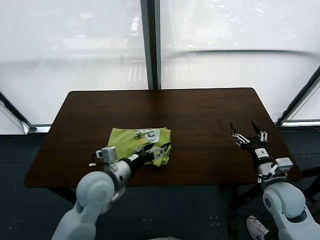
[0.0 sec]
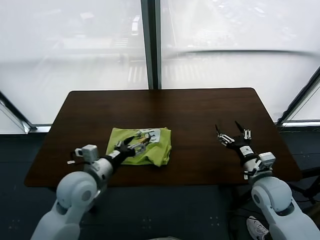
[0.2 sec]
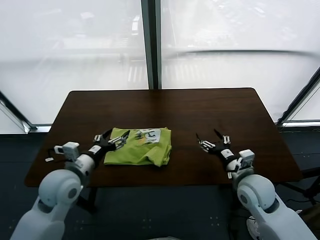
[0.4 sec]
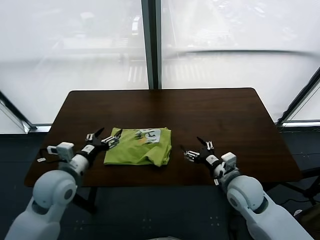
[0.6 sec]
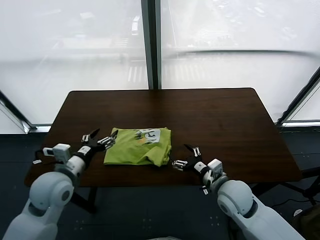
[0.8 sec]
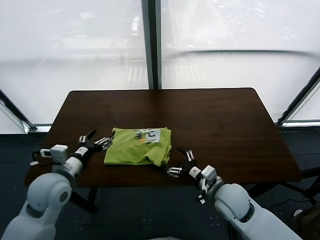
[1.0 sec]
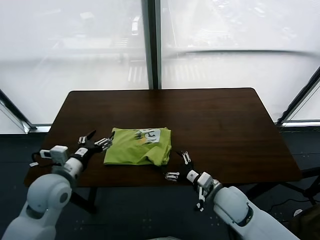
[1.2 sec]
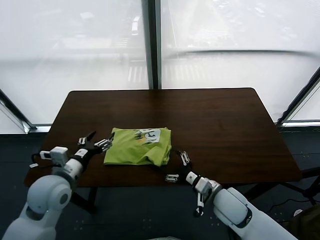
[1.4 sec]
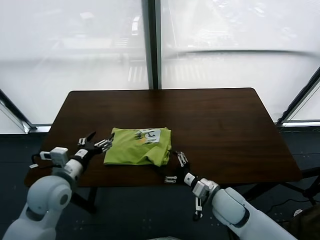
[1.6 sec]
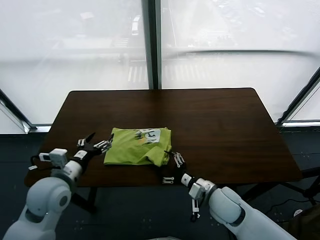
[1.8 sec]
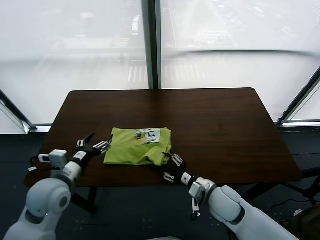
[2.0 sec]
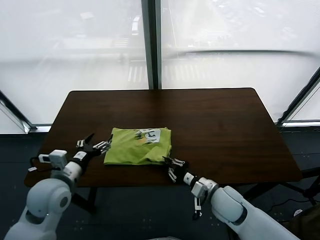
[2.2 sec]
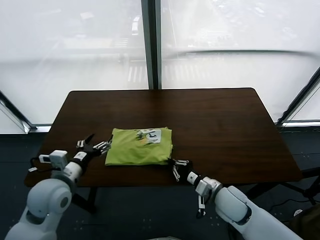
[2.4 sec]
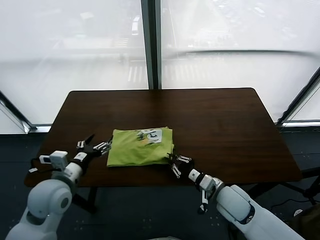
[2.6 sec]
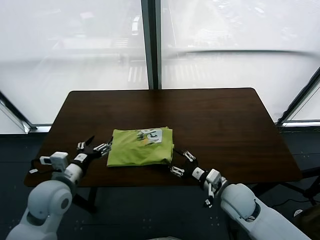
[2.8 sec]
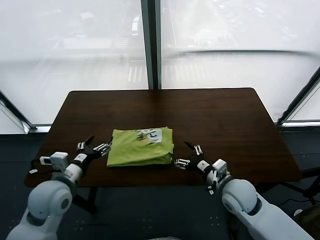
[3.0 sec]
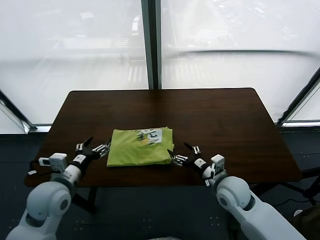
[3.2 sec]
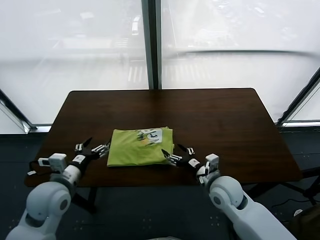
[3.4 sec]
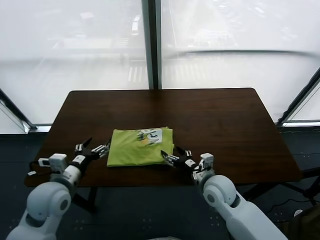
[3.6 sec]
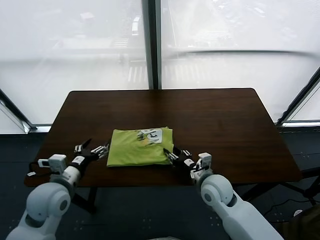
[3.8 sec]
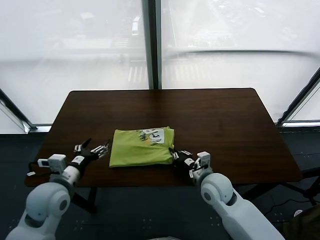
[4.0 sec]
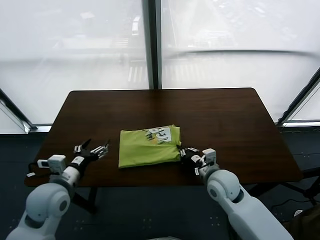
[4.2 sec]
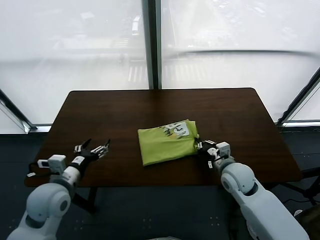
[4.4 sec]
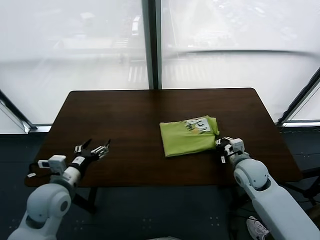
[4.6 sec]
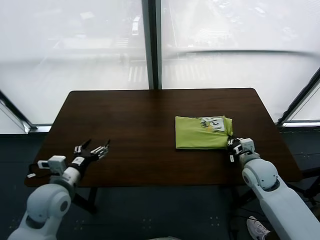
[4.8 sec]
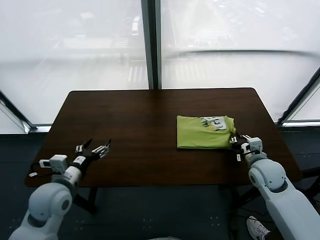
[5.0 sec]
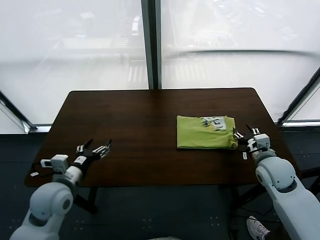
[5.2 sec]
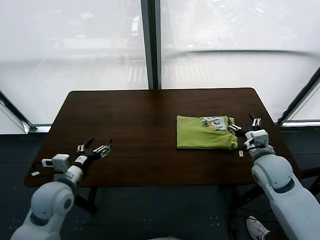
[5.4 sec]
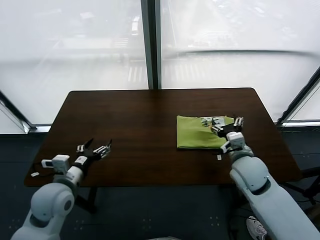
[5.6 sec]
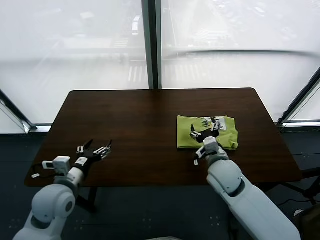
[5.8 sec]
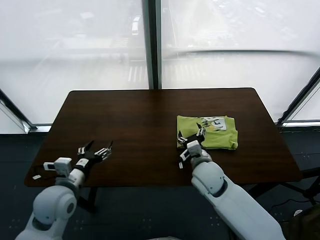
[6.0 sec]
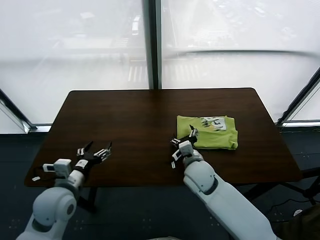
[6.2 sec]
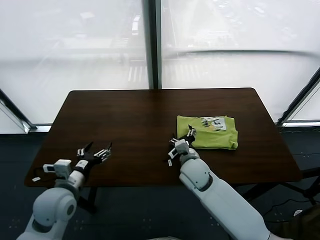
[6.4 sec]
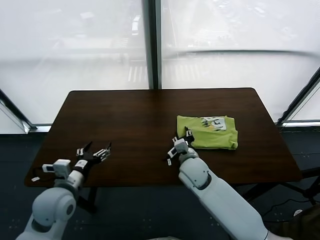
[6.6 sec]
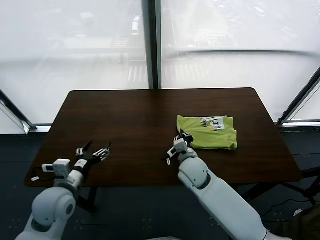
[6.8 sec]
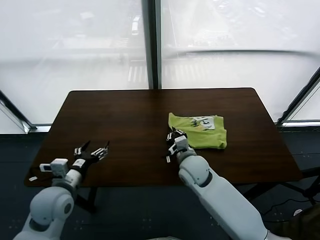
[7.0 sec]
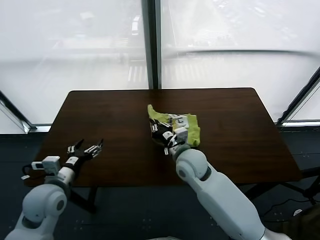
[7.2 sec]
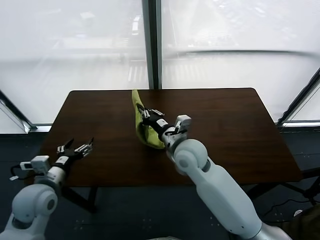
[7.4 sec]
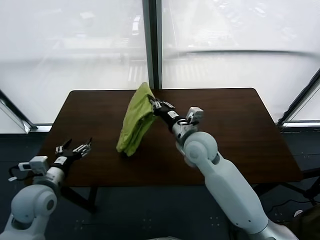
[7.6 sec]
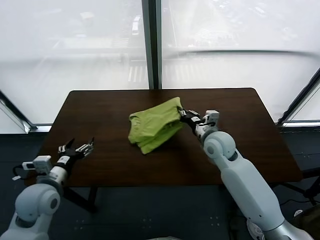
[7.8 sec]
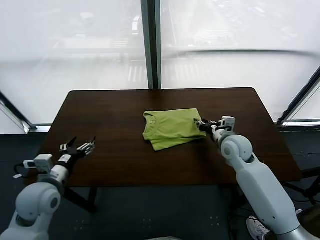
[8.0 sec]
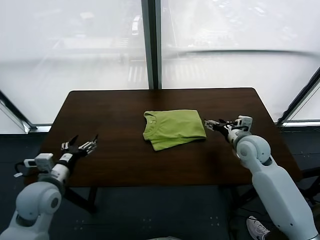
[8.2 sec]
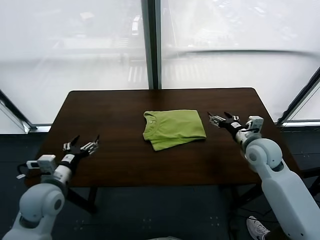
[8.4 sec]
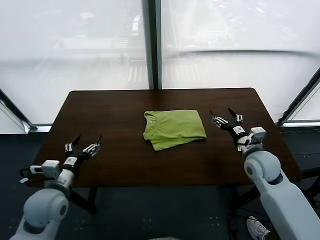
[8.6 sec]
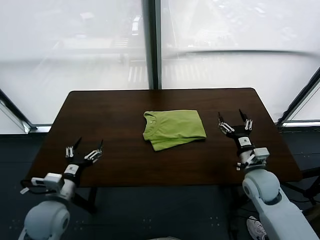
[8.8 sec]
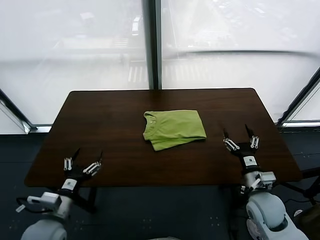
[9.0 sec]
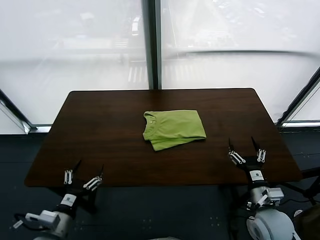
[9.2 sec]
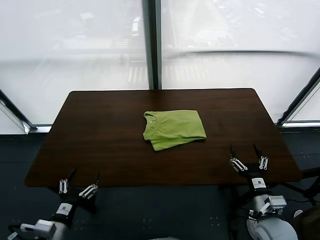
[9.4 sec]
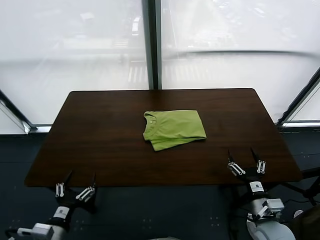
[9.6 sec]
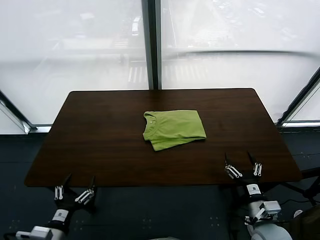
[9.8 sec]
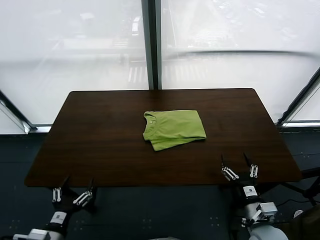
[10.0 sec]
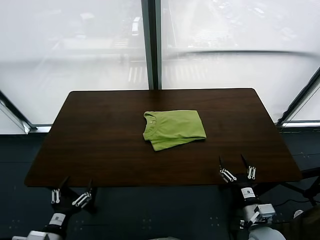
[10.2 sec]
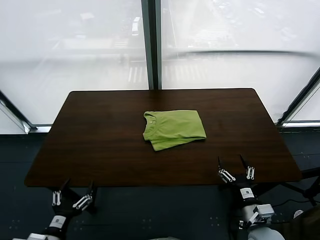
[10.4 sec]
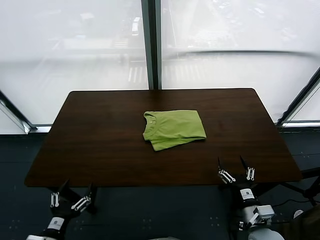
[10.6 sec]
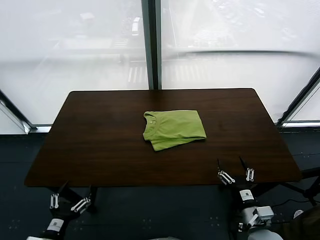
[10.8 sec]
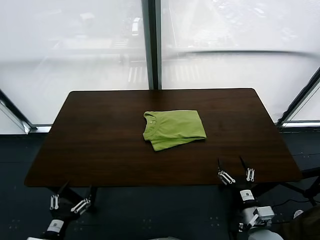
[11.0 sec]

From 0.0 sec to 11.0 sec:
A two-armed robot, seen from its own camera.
Task of the whole recording: fold and organize the clothes.
Step, from 0.0 sec to 5.2 sec: Drag the clothes to the center of the table.
Step, from 5.4 sec to 8.0 sec: Flip the folded clothes over with right gripper.
From 0.0 sec to 1.6 sec: The left gripper shifts roughly 10 cm to the left. The right gripper is displaced to the left and downward by approximately 15 cm.
From 1.6 sec to 3.2 sec: The right gripper closes, then opens again.
From 3.2 sec to 4.8 sec: The right gripper goes approximately 15 cm to the right, and closes.
From 4.8 sec to 6.2 sec: The right gripper shifts approximately 20 cm to the left, and opens up.
From 6.2 sec to 7.8 sec: The right gripper travels to the right, forward and upward by approximately 15 cm, and closes up.
From 7.8 sec to 9.4 sec: The right gripper travels backward and to the right by about 25 cm, and opens its fingers. Meanwhile the left gripper travels backward and downward by about 15 cm.
From 9.4 sec to 11.0 sec: The grippers move only a little.

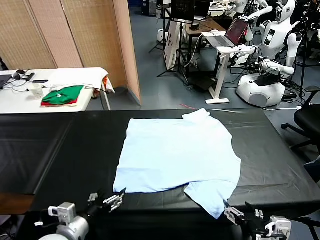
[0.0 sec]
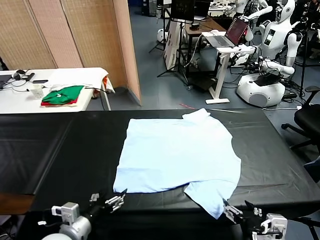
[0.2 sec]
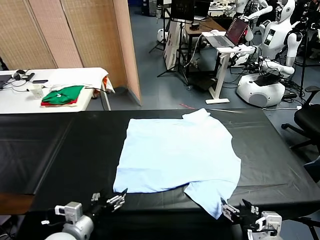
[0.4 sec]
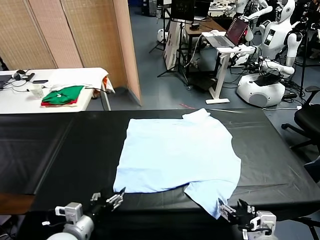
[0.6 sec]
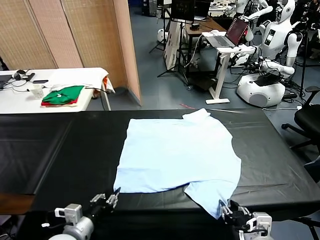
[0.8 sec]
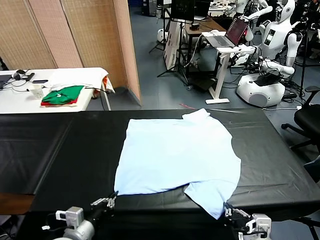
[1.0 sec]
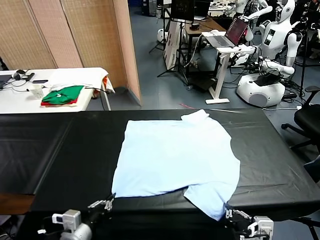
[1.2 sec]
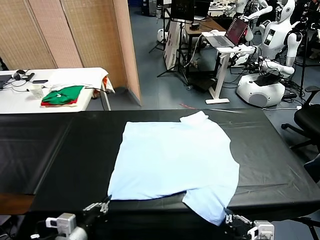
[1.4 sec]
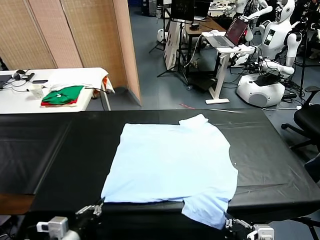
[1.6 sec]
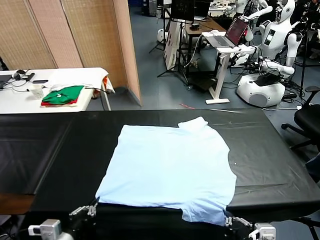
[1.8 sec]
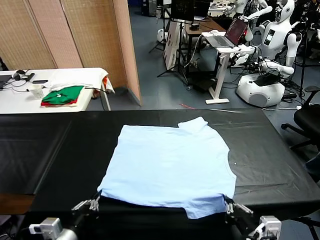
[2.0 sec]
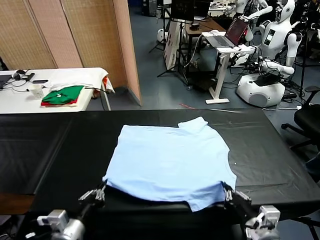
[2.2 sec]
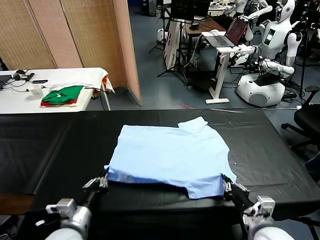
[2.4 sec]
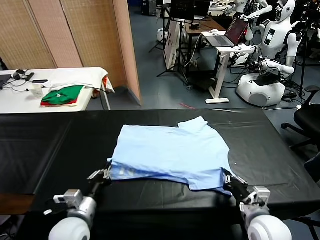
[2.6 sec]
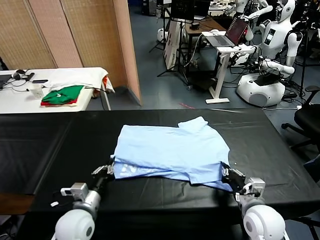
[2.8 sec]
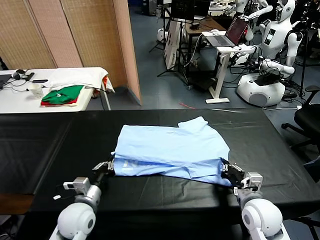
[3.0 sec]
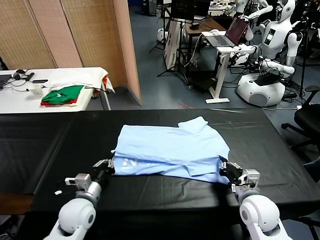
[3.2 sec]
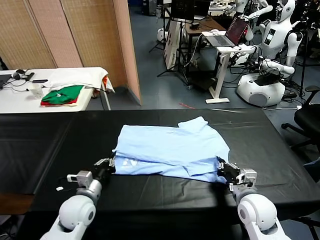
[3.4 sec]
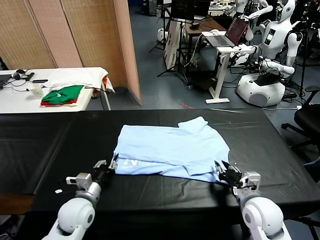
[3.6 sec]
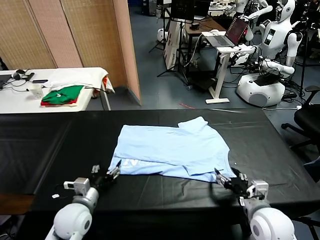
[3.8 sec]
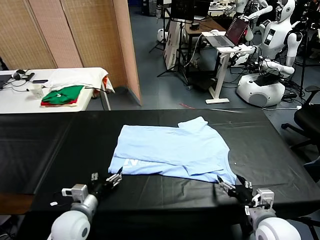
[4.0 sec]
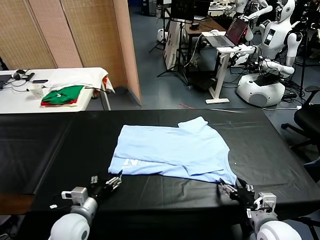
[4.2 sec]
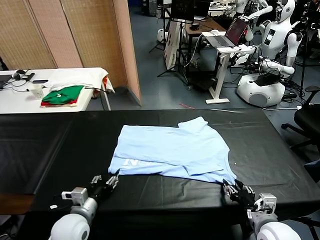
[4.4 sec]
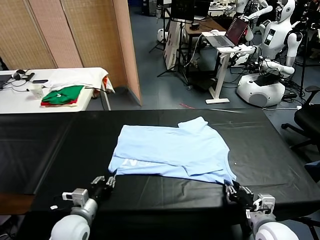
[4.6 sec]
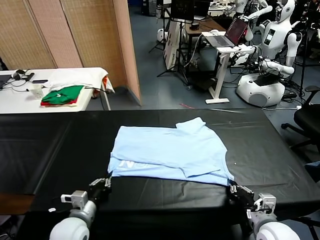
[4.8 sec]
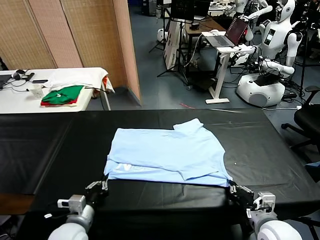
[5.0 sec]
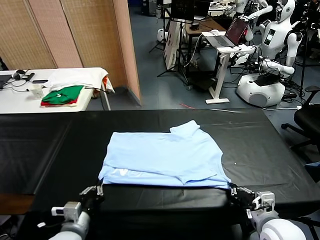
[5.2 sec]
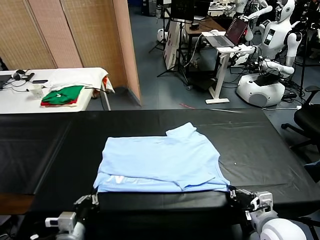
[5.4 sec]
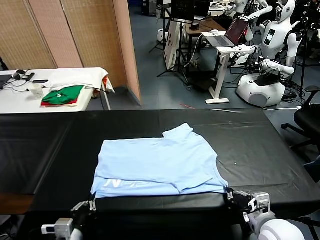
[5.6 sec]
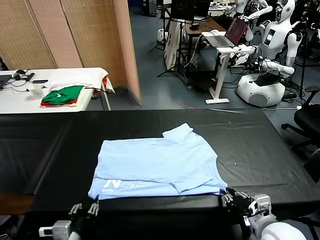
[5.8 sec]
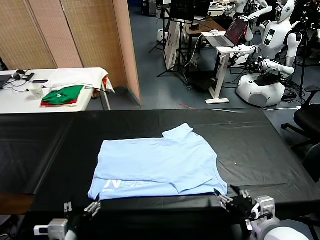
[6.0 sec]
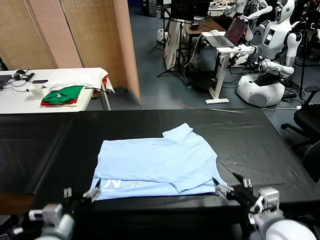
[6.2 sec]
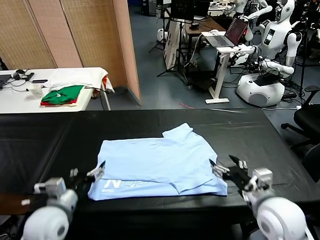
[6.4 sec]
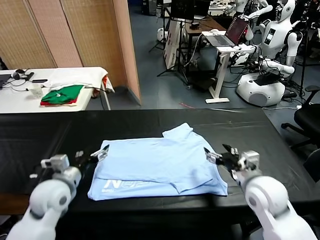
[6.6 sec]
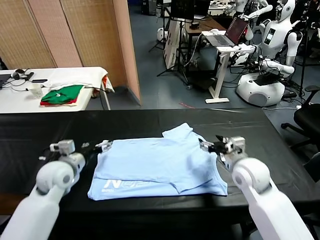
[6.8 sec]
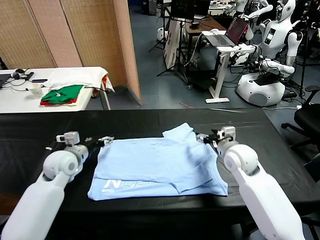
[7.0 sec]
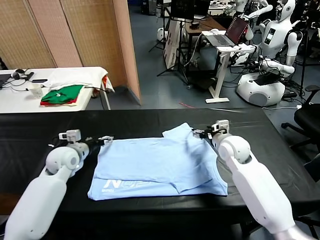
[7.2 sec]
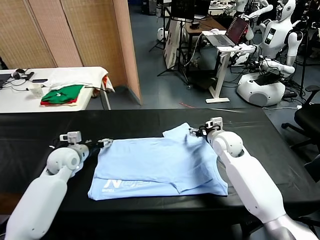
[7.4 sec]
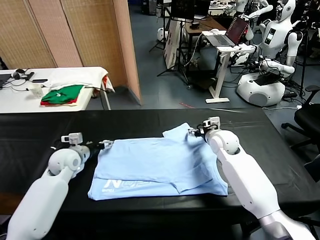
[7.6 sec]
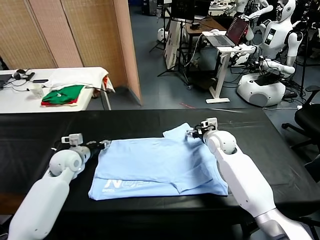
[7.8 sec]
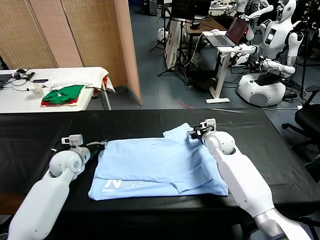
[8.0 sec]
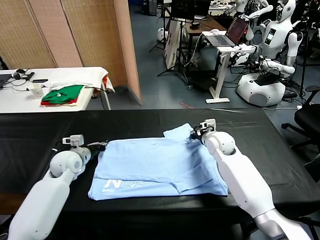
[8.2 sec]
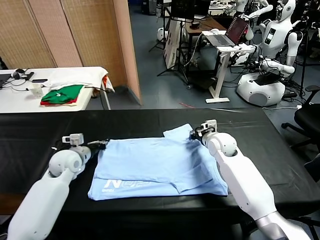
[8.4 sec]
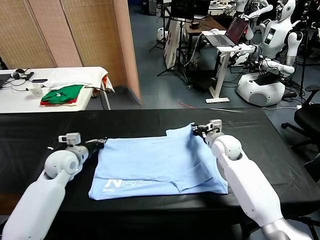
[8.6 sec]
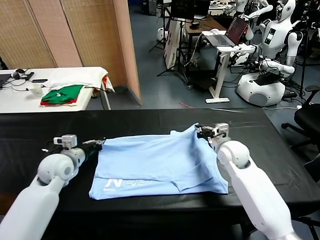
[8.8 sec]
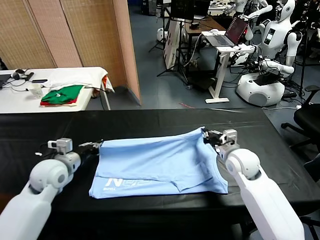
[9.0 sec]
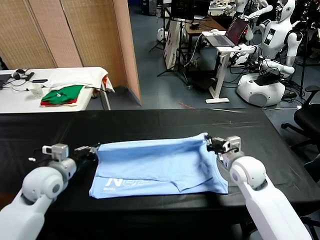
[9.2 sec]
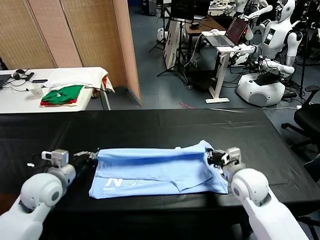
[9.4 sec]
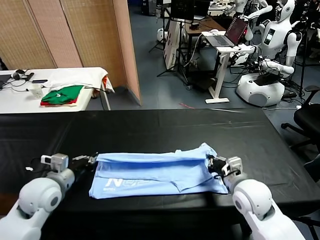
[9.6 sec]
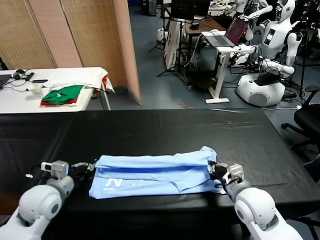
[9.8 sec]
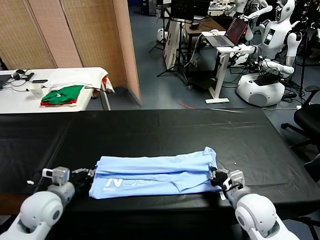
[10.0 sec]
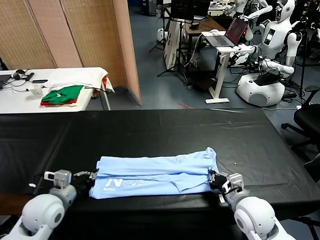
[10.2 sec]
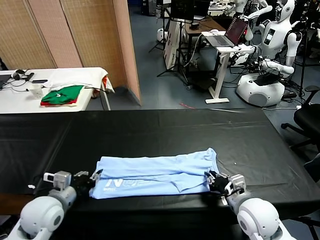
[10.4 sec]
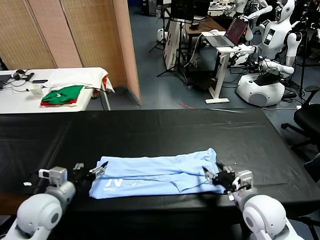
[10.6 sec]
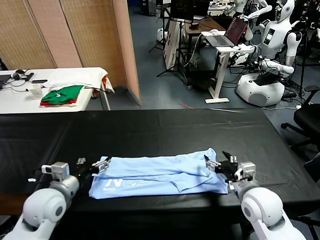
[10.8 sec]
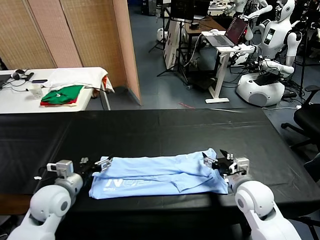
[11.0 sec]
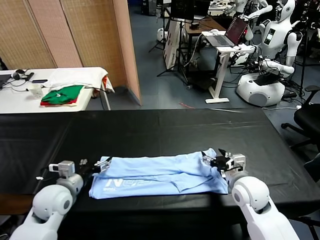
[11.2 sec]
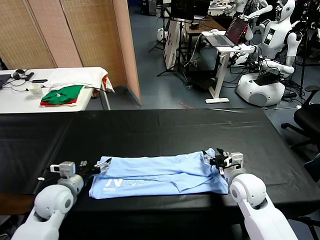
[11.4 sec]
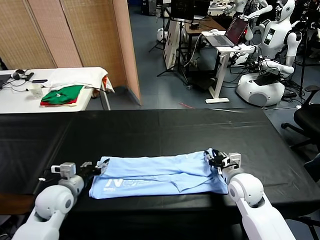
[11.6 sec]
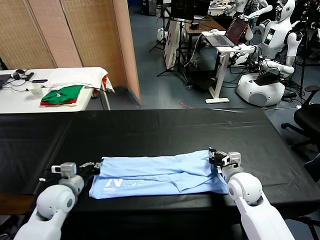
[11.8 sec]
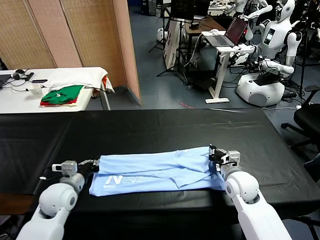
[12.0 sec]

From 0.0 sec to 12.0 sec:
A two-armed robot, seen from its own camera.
Task of the whole recording: fold and organize the clothes.
Step, from 0.0 sec to 1.0 sec: use both grippers simultaneously to clamp the lower edge of the clothing fabric.
Step, from 1.2 sec to 3.6 sec: use both grippers to drag the lower edge of the fabric forward and fold it over the upper edge.
Step, from 3.8 sec to 5.8 sec: Drag the clothes downward with both gripper.
Step, from 6.0 sec to 8.0 sec: use both grippers simultaneously to clamp the upper edge of the clothing fabric.
Step, from 8.2 sec to 10.4 sec: use both grippers to drag the upper edge of the fabric backward and fold it over the lower edge.
From 1.6 sec to 3.0 sec: The grippers both shift forward by about 15 cm.
From 3.0 sec to 4.4 sec: The left gripper opens, while the right gripper heads backward, covering roughly 5 cm, and opens its fingers.
From 4.4 sec to 6.0 sec: The right gripper travels upward by some 10 cm, and opens its fingers. Meanwhile the left gripper moves backward and upward, roughly 10 cm, and closes, then opens again.
From 6.0 sec to 7.6 sec: Both grippers move forward, roughly 30 cm.
From 7.6 sec to 9.0 sec: The left gripper travels backward by about 5 cm, and closes up; the right gripper travels backward by about 10 cm, and closes.
From 9.0 sec to 10.4 sec: Both grippers travel together backward, about 10 cm. The right gripper opens.
From 10.4 sec to 12.0 sec: The right gripper moves forward and downward, some 10 cm, and closes, while the left gripper heads forward, covering approximately 5 cm, and opens, then closes again.
